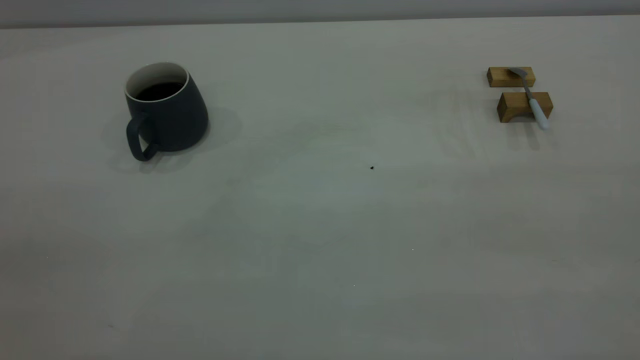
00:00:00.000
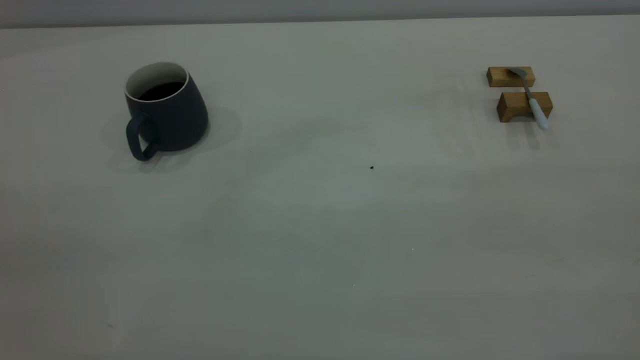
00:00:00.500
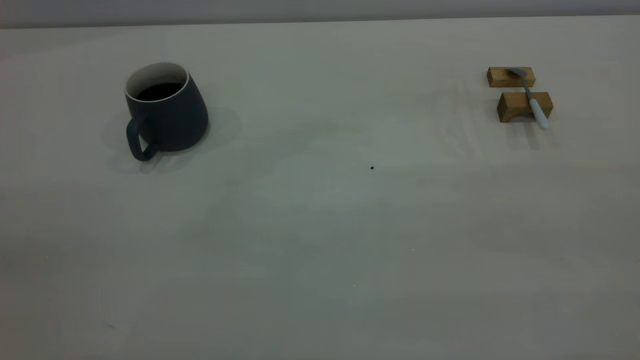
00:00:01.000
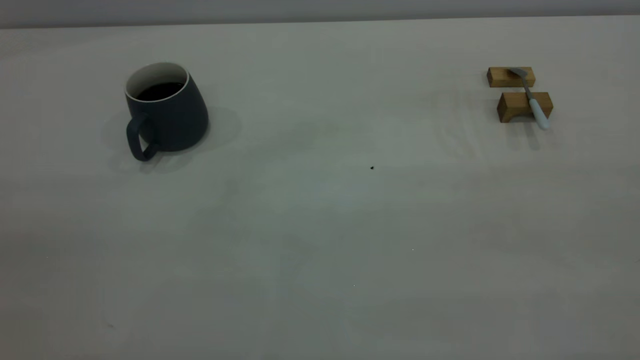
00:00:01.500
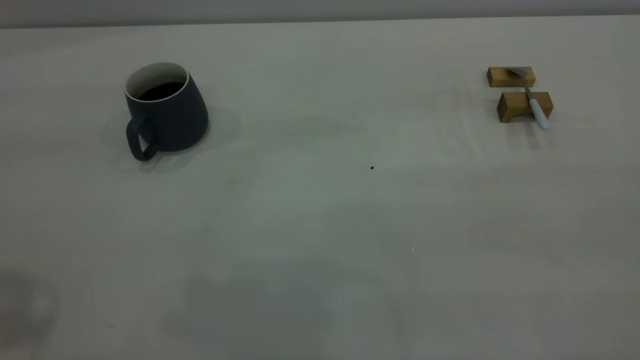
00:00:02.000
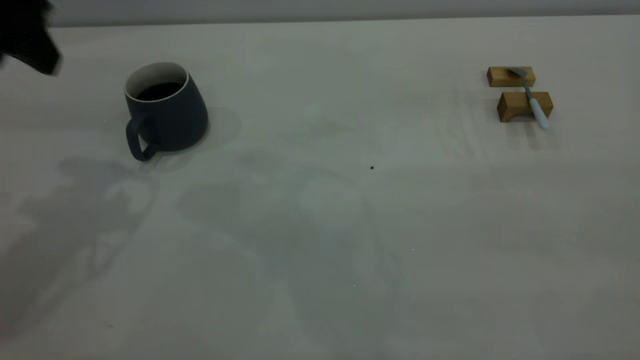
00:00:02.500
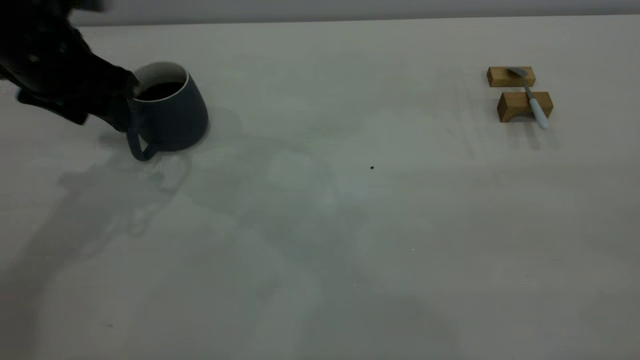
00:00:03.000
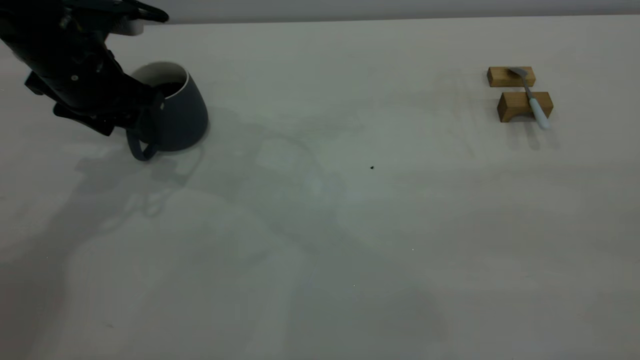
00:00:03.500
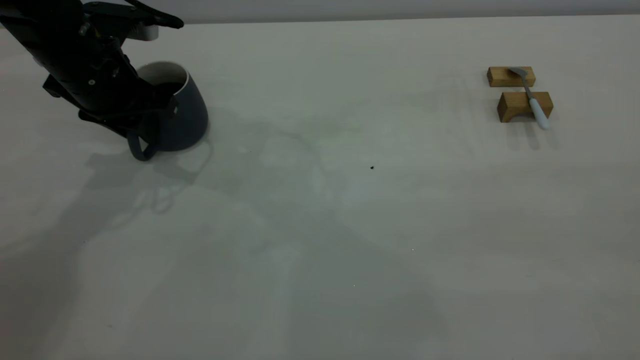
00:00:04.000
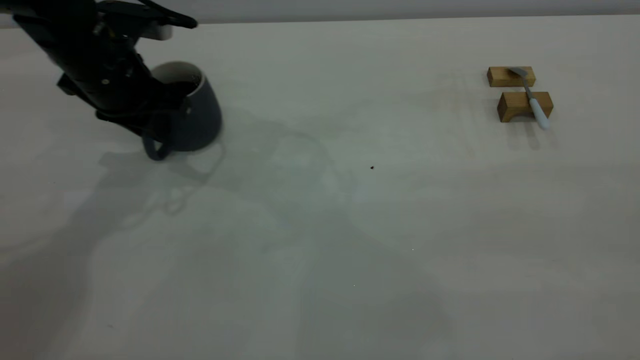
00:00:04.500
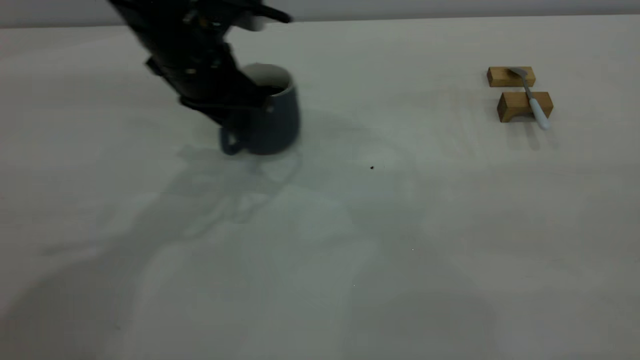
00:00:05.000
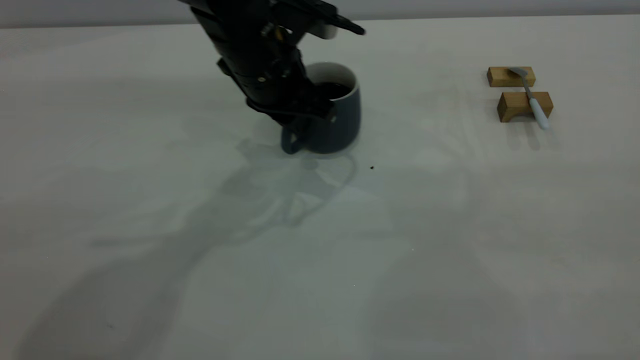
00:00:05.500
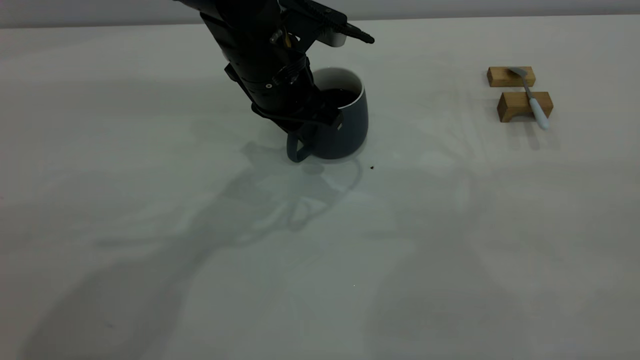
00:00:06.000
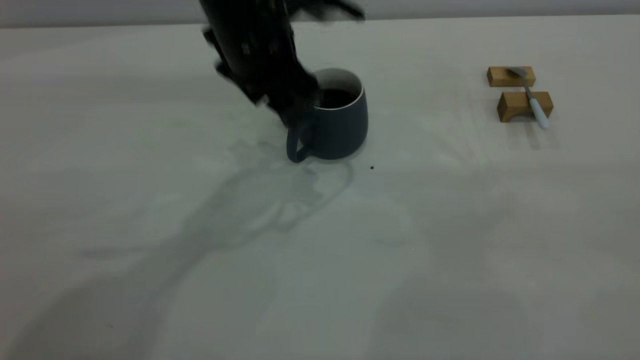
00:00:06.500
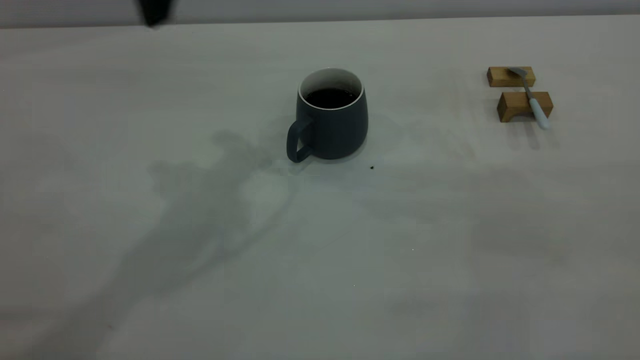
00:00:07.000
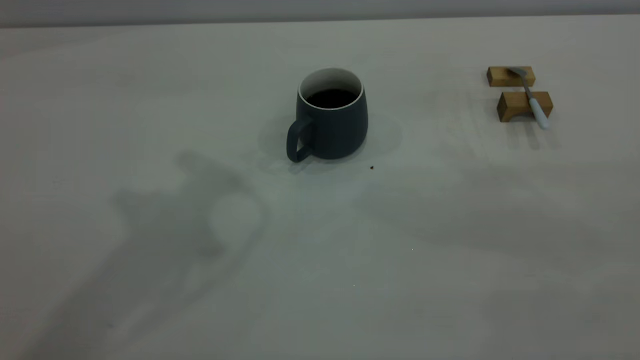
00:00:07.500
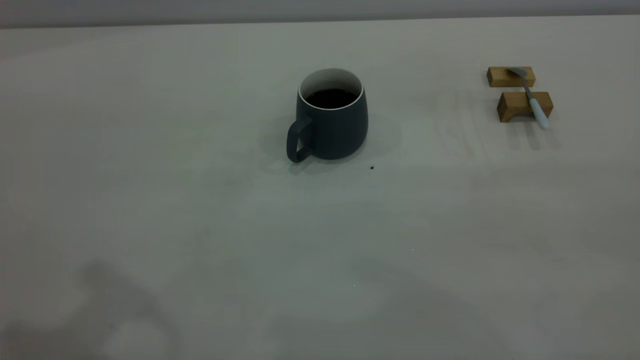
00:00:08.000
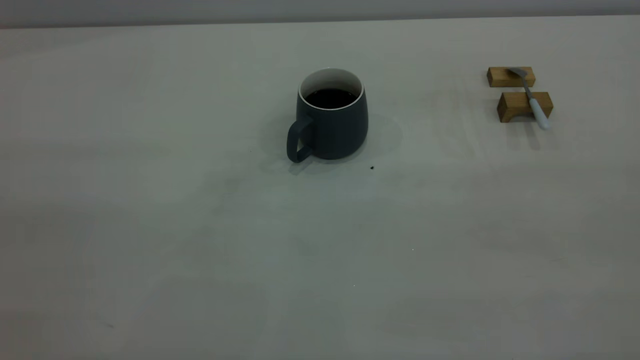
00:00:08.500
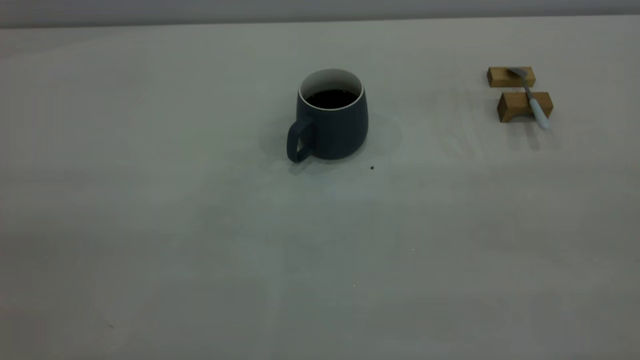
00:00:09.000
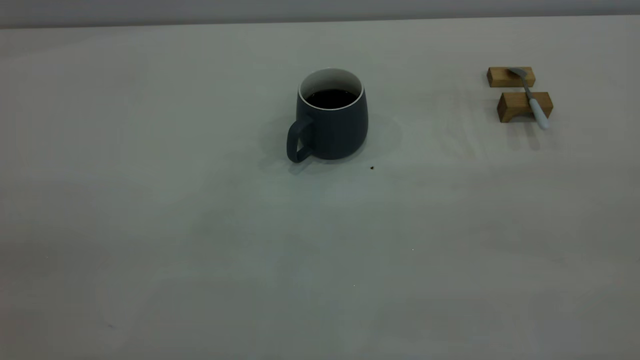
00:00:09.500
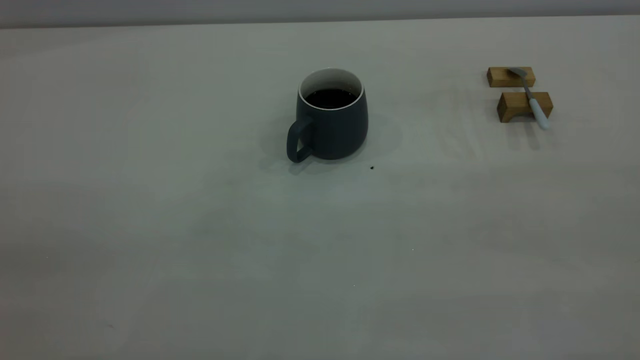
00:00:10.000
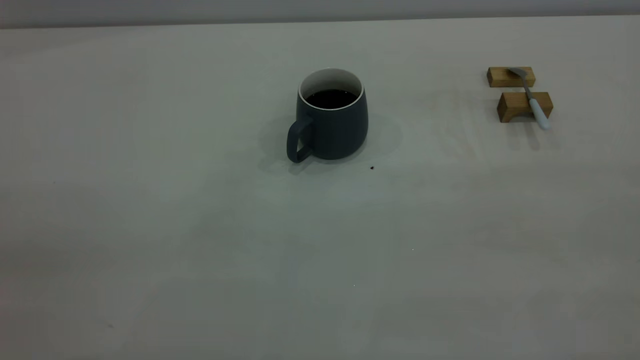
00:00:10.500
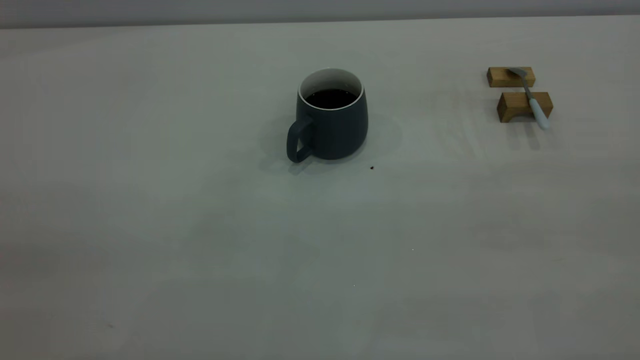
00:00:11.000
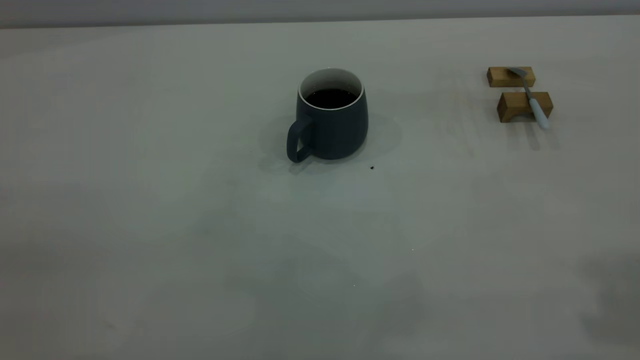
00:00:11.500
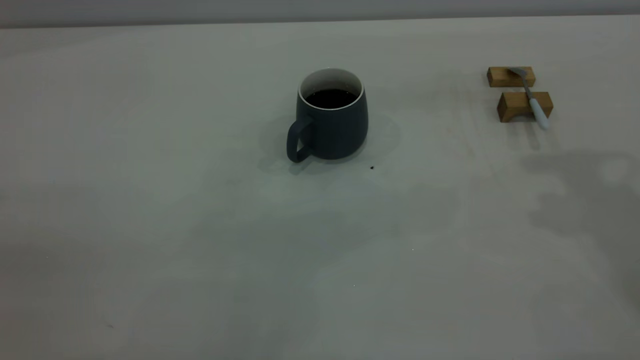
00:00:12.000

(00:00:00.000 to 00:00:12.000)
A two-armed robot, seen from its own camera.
Step, 00:00:00.000 - 00:00:06.500: Move the cup with coffee to the center of view.
00:00:02.000 - 00:00:04.000: The left gripper heads downward and forward, covering about 30 cm, and closes up.
00:00:04.000 - 00:00:06.000: The left gripper moves to the right, roughly 20 cm.
00:00:06.000 - 00:00:08.000: The left gripper moves upward, backward and to the left, approximately 35 cm, and opens, then closes again.

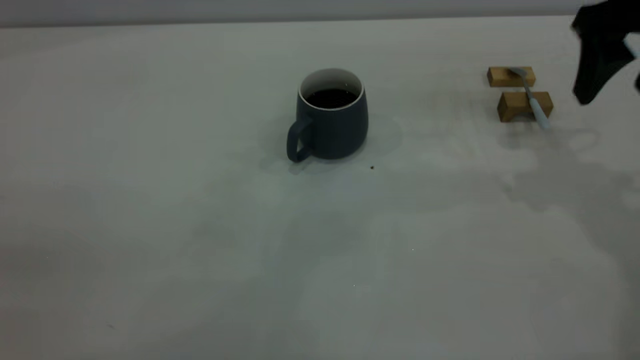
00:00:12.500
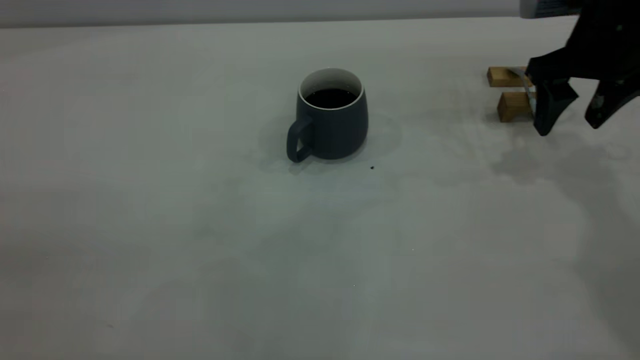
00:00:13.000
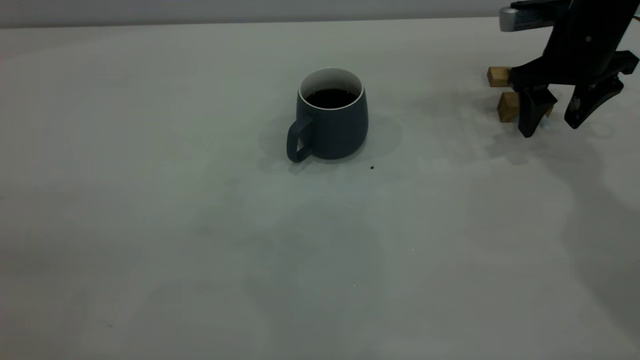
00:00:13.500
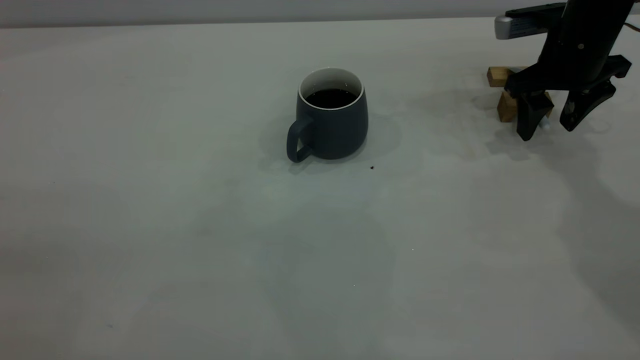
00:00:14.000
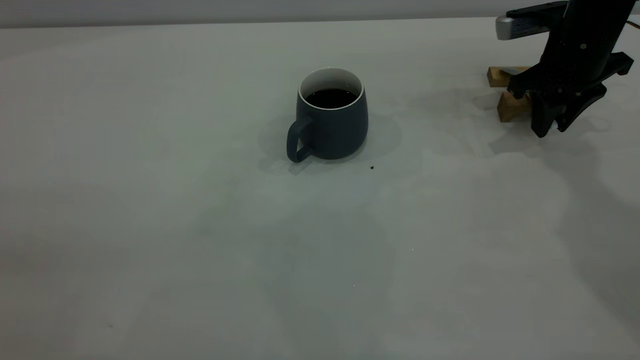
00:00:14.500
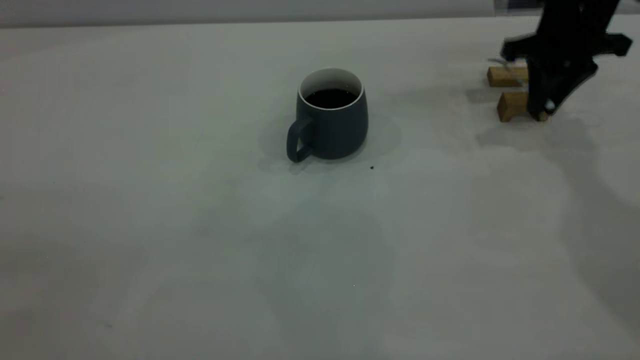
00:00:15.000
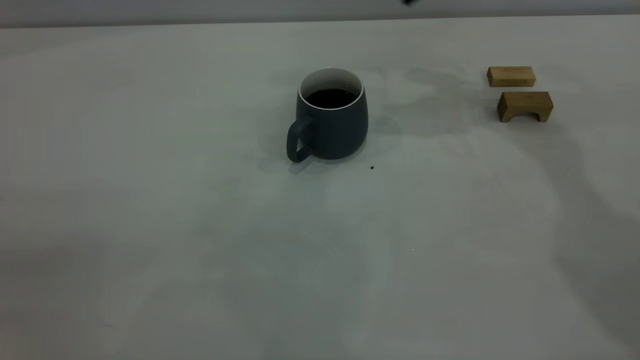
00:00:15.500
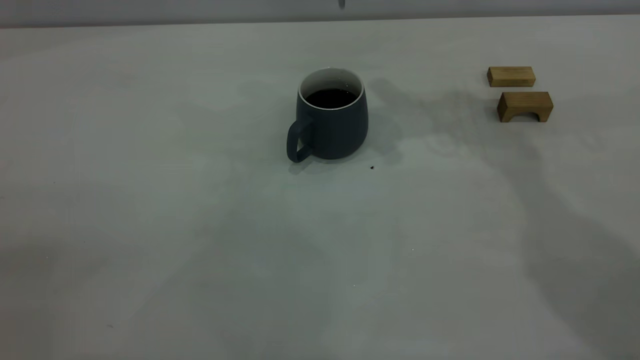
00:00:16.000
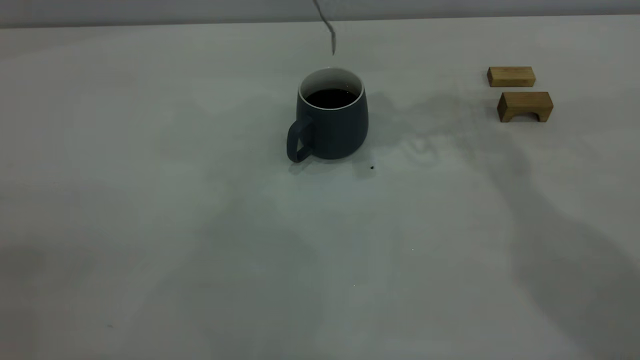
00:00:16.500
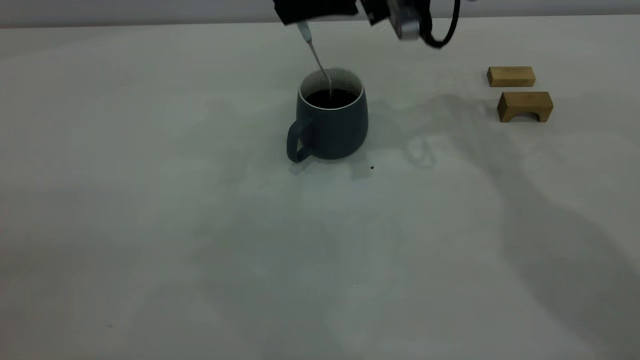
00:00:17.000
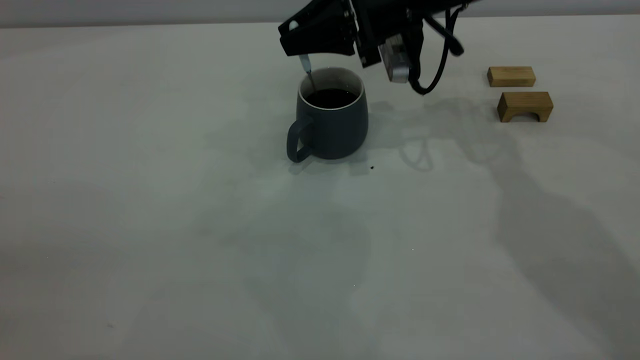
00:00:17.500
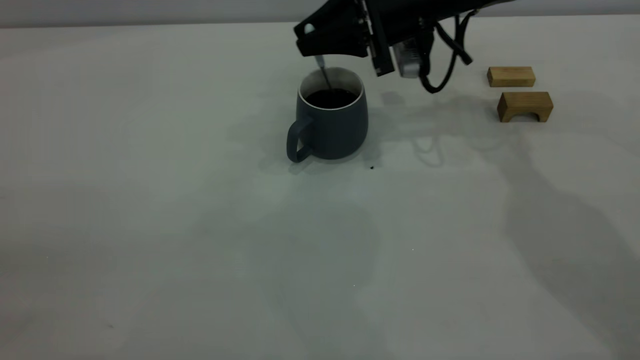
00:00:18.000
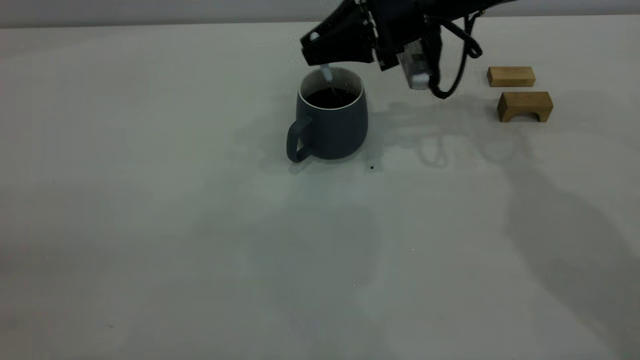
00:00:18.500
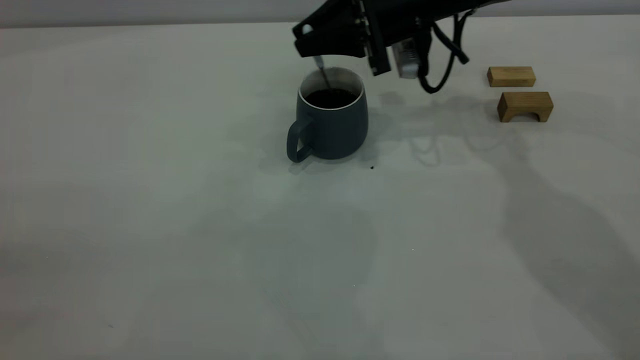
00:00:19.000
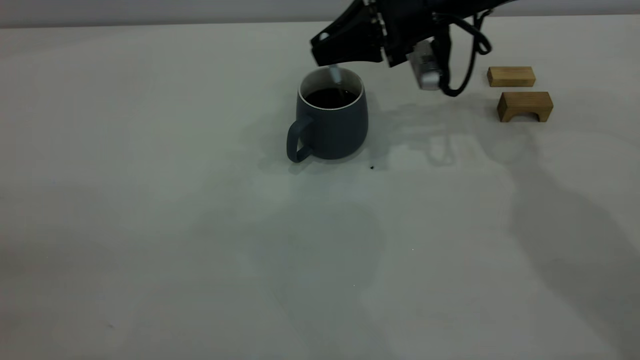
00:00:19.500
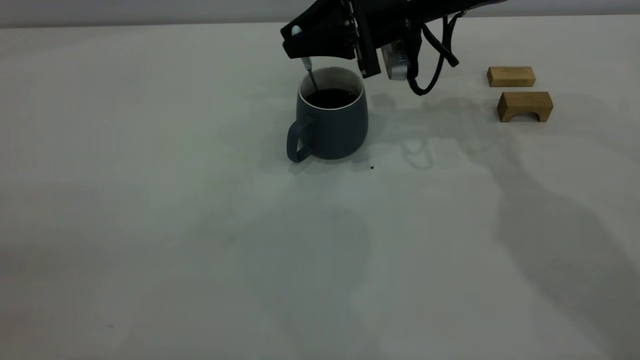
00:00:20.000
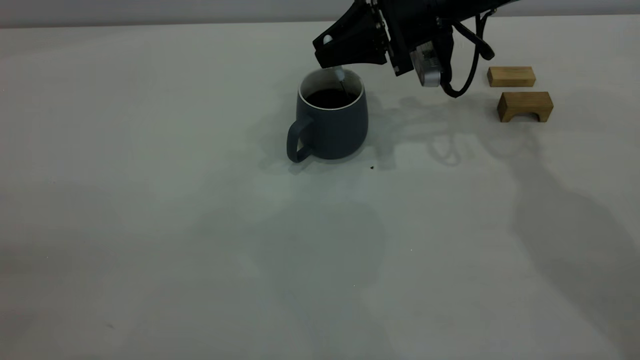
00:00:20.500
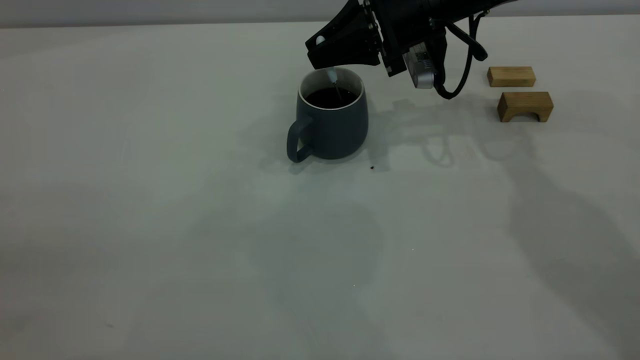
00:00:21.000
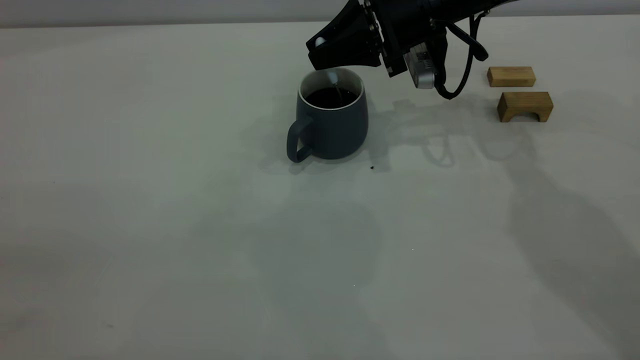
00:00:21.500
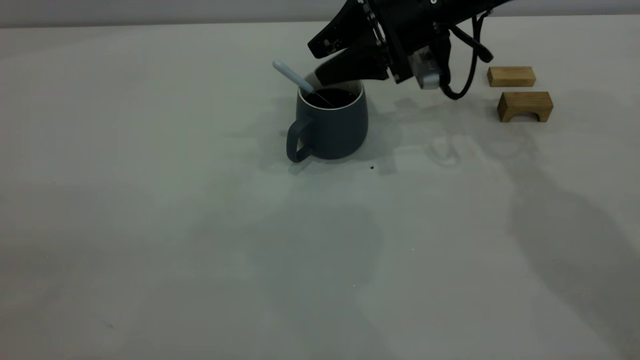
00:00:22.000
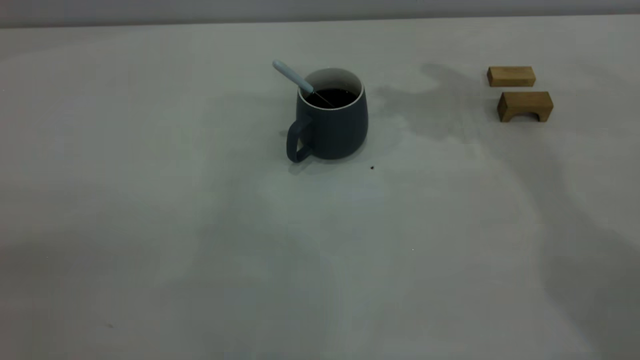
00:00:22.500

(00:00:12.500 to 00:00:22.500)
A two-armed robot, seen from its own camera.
Step, 00:00:12.500 - 00:00:15.000: Pick up the spoon.
Step, 00:00:15.500 - 00:00:22.000: Stir the coffee in the cup.
00:00:12.500 - 00:00:14.500: The right gripper is displaced downward and forward by some 15 cm, and closes.
00:00:14.500 - 00:00:16.500: The right gripper is displaced to the left and upward by approximately 25 cm.
00:00:16.500 - 00:00:18.500: The right gripper shifts roughly 10 cm downward.
00:00:18.500 - 00:00:20.500: The grippers stay close to where they were, moving slightly.
00:00:20.500 - 00:00:22.500: The right gripper is displaced upward by approximately 20 cm, and opens its fingers.
